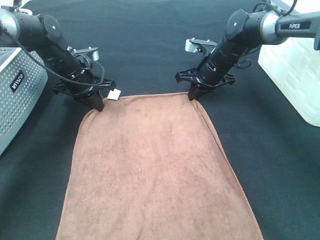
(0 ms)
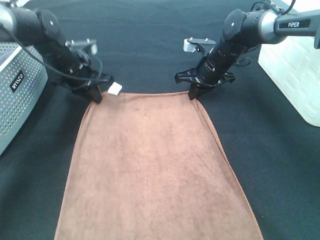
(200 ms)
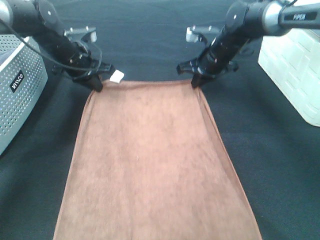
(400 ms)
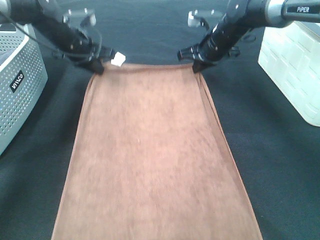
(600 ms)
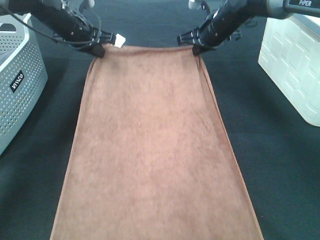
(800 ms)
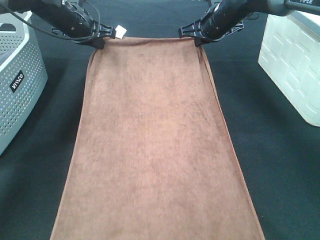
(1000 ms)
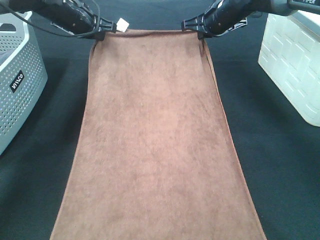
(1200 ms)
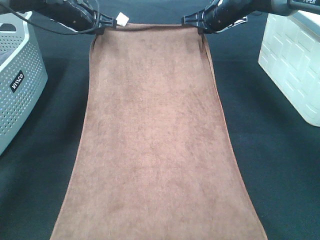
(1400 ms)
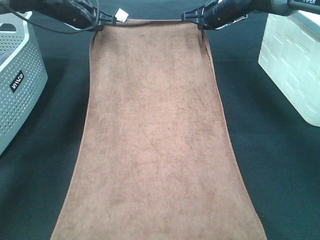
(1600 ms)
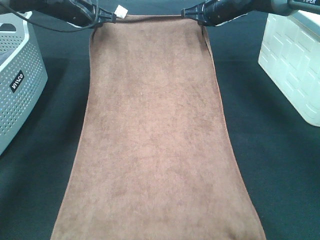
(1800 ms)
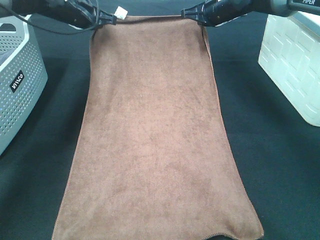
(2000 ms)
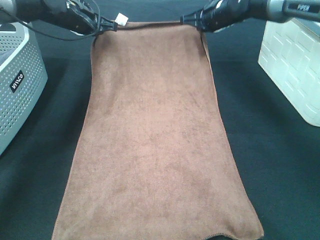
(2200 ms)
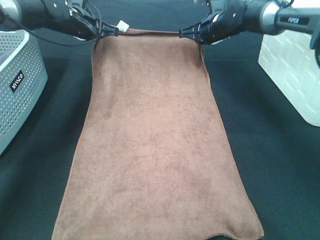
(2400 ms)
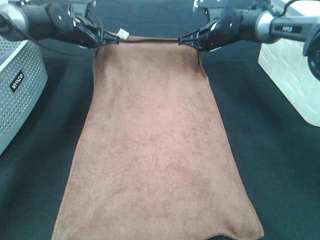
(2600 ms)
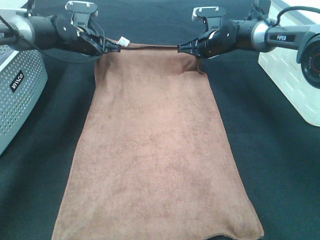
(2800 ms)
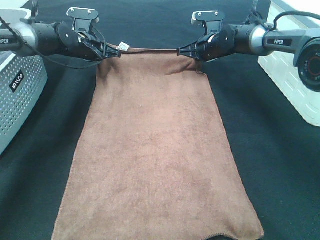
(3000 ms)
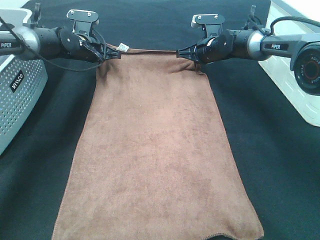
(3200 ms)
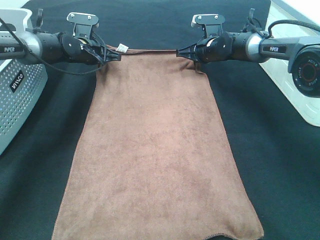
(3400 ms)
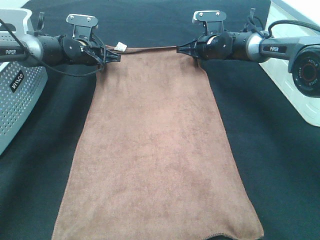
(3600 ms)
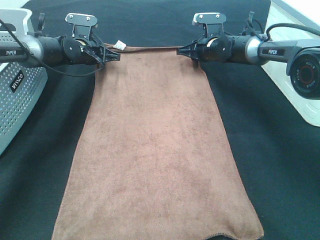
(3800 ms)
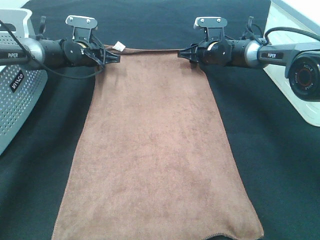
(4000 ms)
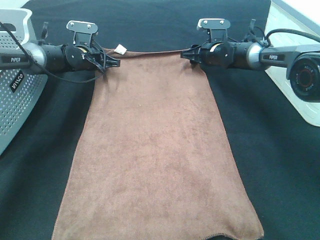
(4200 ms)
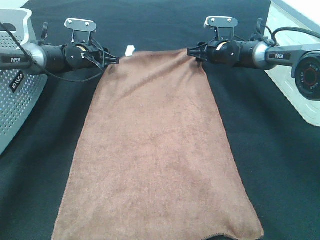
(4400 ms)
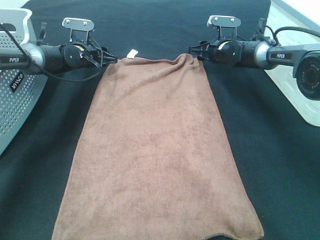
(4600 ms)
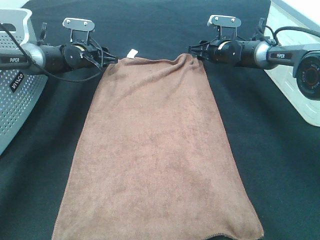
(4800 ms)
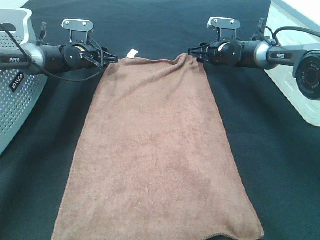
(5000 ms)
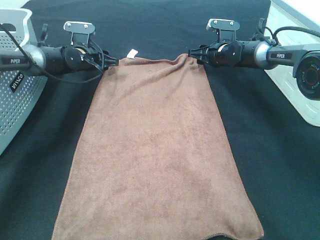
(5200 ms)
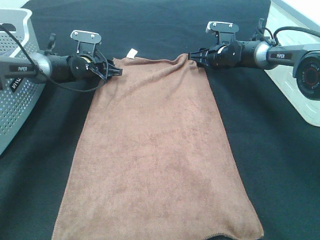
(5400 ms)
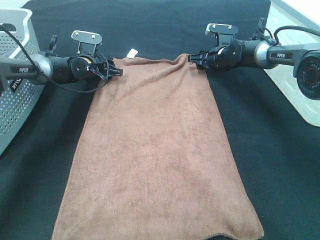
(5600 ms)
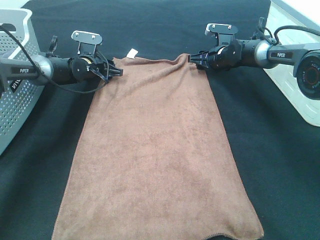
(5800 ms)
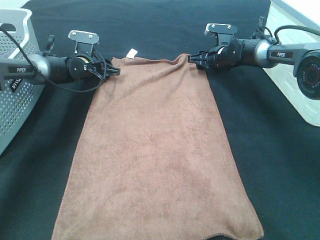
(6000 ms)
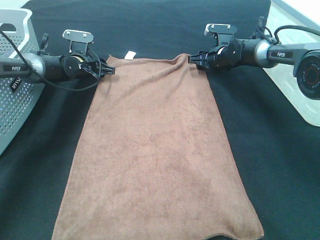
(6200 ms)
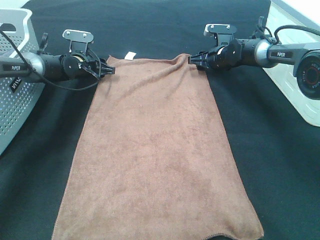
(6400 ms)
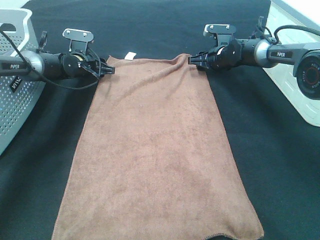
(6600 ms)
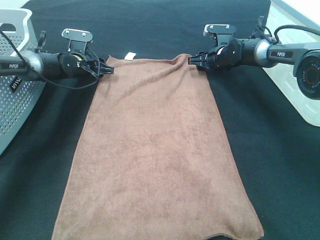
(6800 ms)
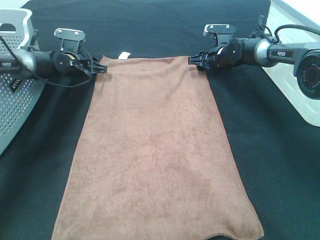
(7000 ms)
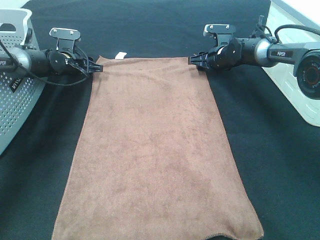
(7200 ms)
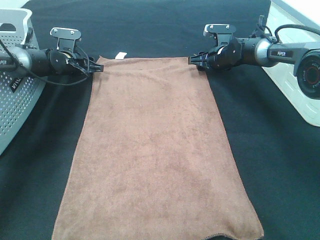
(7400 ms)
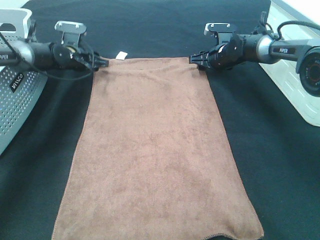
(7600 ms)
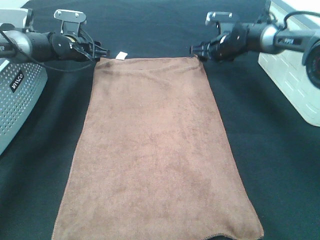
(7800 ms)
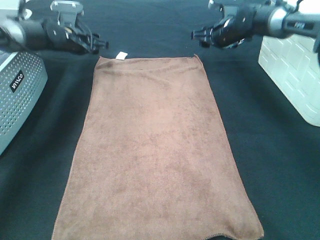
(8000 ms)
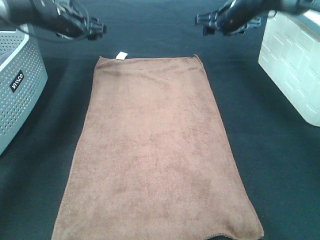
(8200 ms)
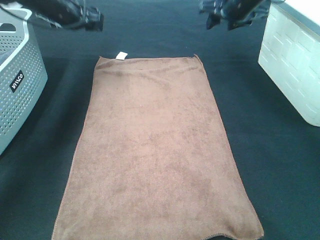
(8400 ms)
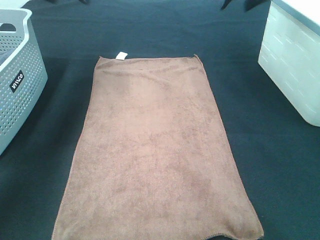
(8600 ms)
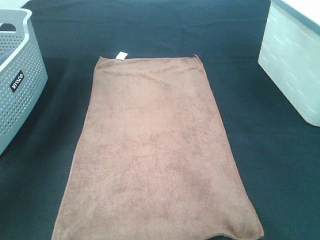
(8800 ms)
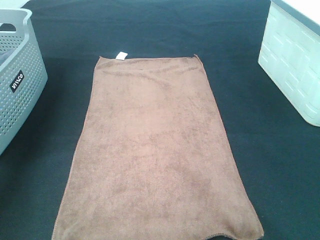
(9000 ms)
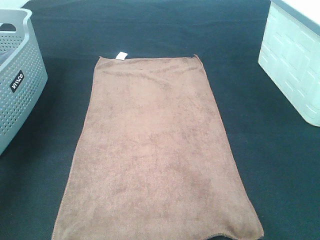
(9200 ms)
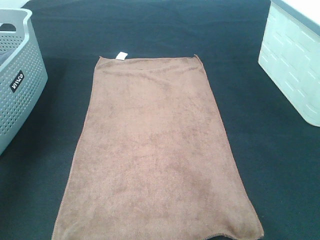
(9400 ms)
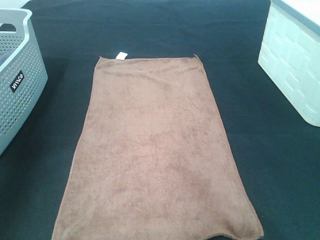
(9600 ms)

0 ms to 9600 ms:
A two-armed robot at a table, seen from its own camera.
Task of the whole recording: Remove the towel and place it.
0 ms to 1600 ms: Both grippers move upward and forward, approximately 10 cm.
1600 ms to 3200 ms: The grippers both shift downward by approximately 10 cm.
3200 ms to 4800 ms: The left gripper opens. Meanwhile the right gripper opens.
4800 ms to 6400 ms: There are only small adjustments of the grippers.
6400 ms to 8000 ms: Both grippers travel together upward, roughly 10 cm.
8000 ms to 9600 ms: Both grippers move backward and upward, approximately 40 cm.

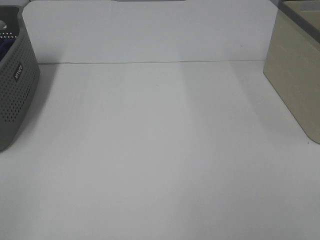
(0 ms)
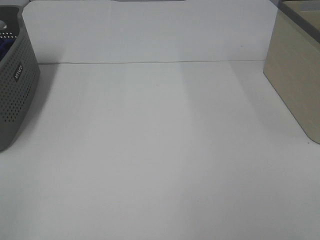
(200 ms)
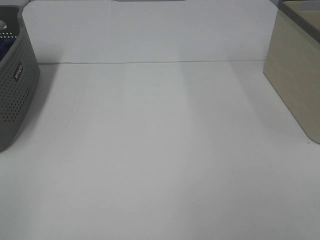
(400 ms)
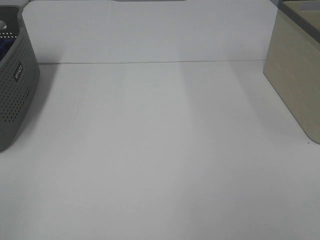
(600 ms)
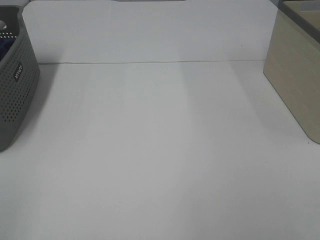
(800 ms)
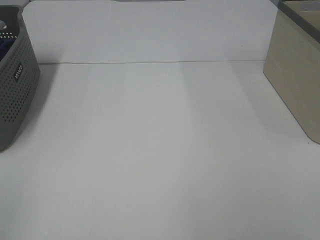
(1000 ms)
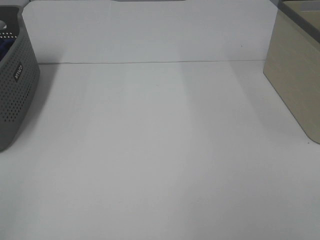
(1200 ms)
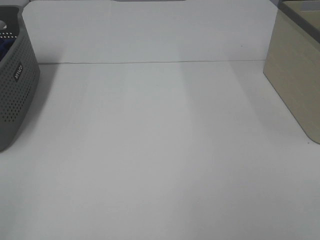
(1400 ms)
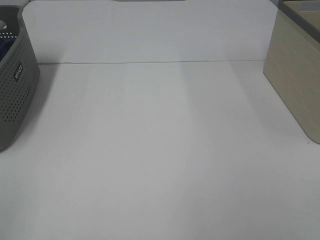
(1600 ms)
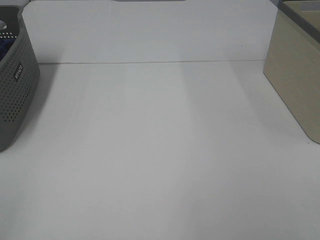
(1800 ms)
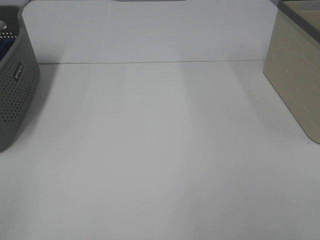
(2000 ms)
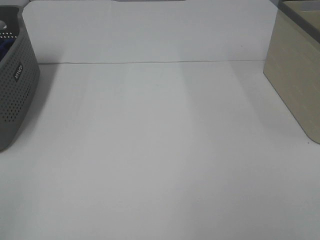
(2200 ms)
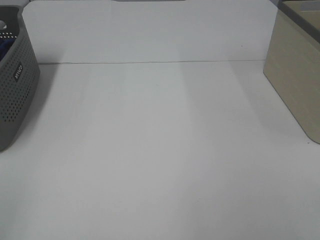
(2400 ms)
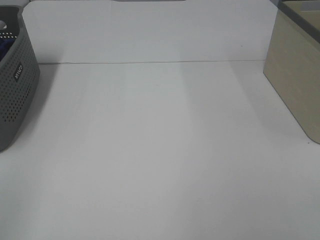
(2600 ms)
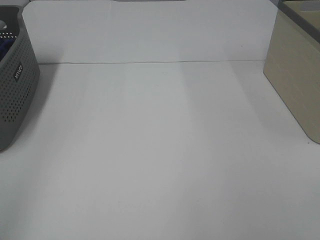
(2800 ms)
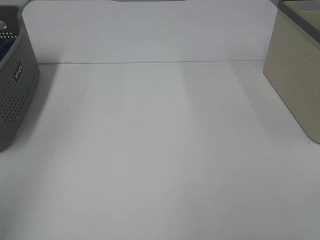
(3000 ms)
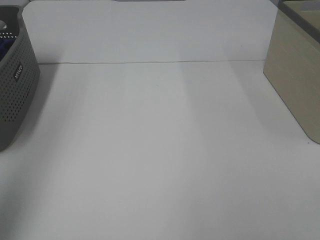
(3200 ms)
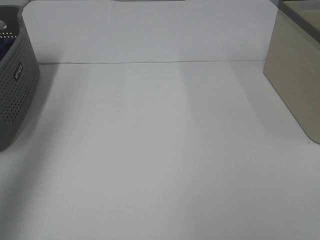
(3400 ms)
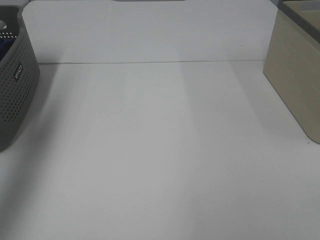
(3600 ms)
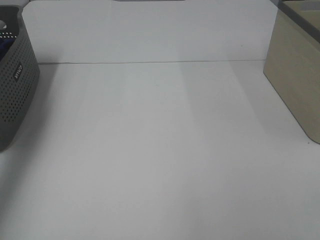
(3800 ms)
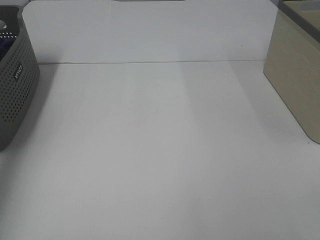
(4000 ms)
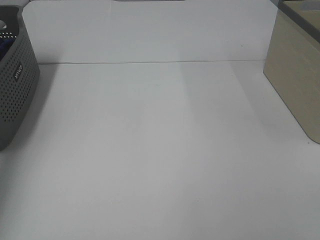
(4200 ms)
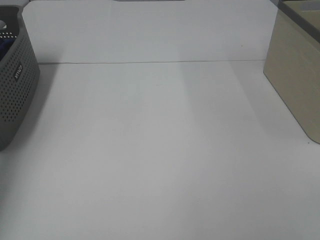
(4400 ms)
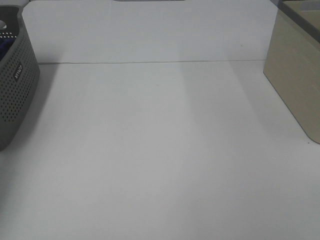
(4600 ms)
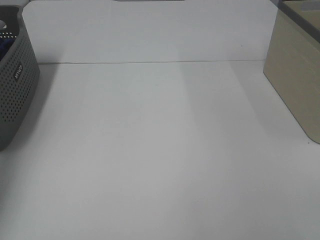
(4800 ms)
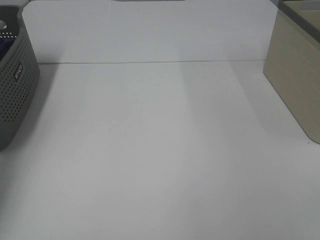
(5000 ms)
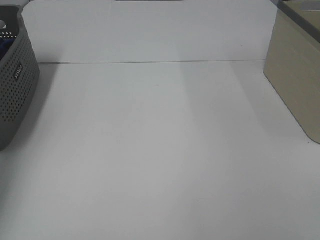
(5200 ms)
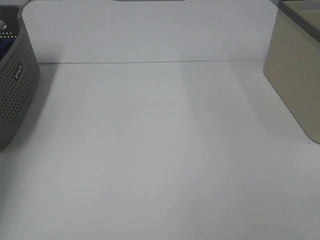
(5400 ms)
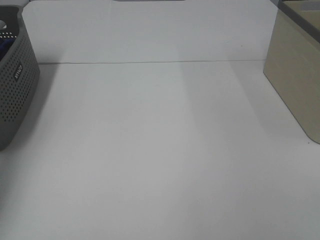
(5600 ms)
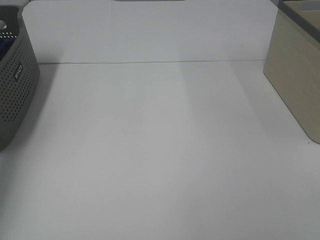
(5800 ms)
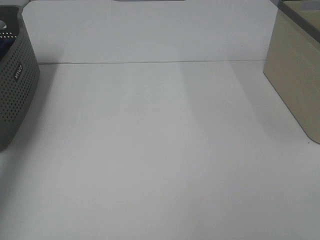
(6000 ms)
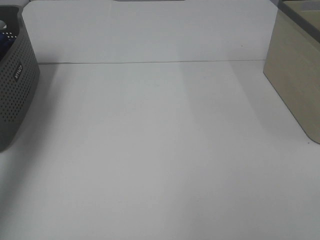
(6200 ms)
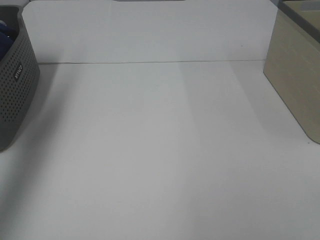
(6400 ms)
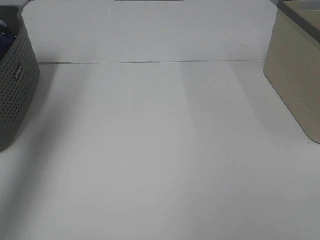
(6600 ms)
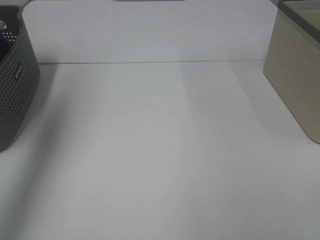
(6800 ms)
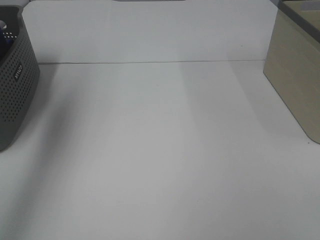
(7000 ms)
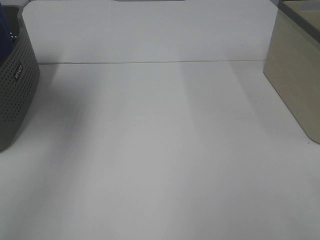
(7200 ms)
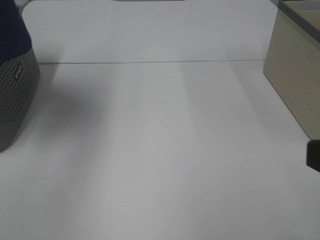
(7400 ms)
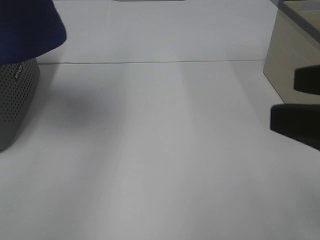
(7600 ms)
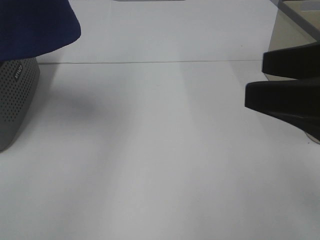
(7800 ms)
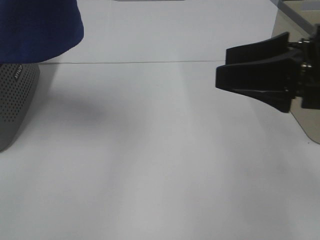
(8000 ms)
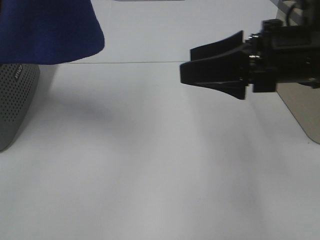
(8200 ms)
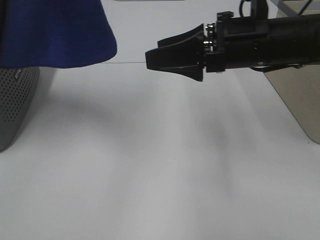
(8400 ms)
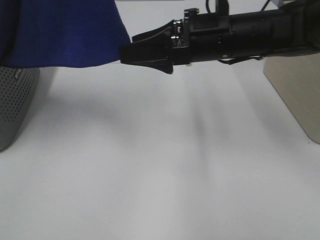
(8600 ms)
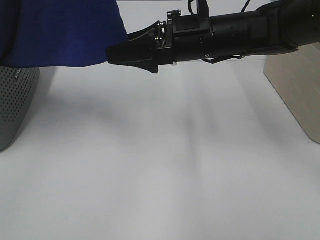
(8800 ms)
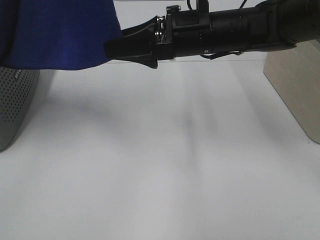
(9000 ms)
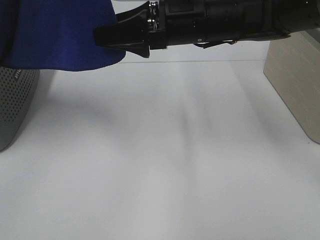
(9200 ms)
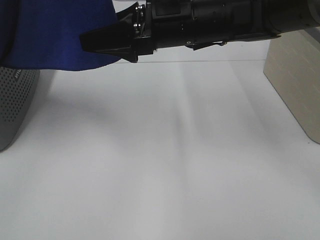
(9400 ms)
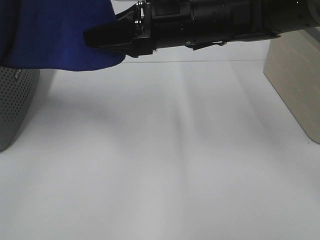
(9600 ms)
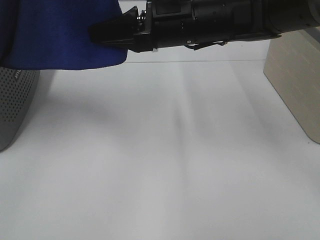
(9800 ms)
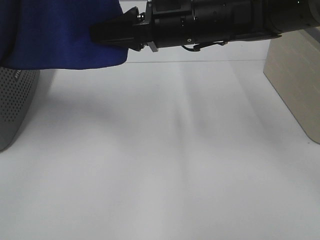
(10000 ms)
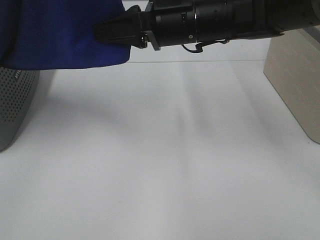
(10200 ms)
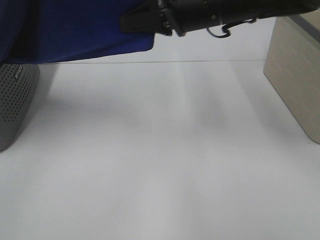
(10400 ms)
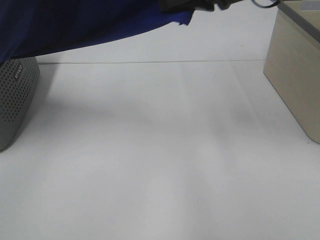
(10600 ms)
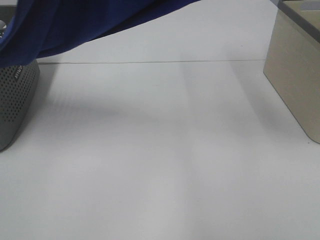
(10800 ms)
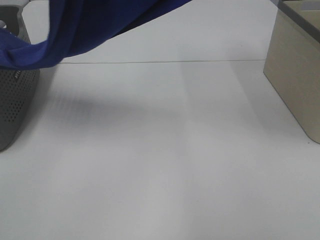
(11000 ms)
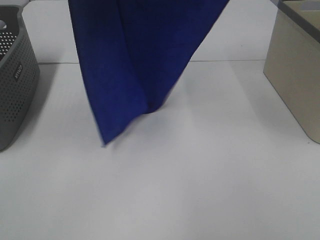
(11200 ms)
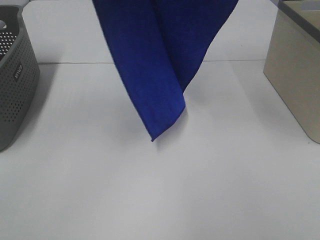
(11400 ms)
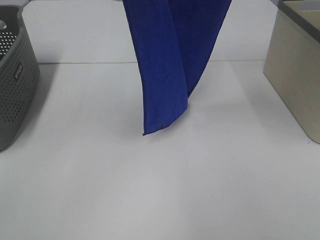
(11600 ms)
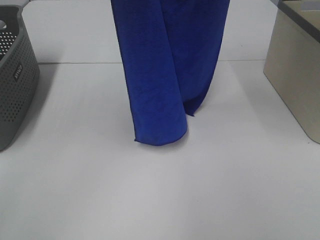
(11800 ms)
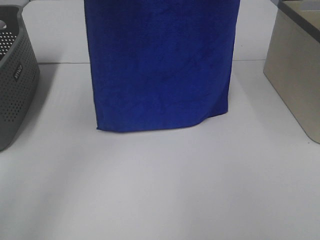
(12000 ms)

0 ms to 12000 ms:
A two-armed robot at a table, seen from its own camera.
Task of the whole recording: Remove the towel and place it.
Step, 7000 ms to 9800 ms: Right hand: grab a corner of the blue towel and straighten it.
0 ms to 1600 ms: Both grippers stay about where they are.
3000 ms to 4400 ms: The left gripper shifts approximately 40 cm forward and downward.
6000 ms to 7600 ms: The left gripper goes about 30 cm upward, to the right and backward, while the right gripper shifts approximately 10 cm forward.
7600 ms to 9000 ms: The left gripper is displaced to the right by some 5 cm. Meanwhile the right gripper is displaced forward and to the left by some 30 cm.
9000 ms to 10400 ms: The right gripper closes its fingers.
10400 ms to 12000 ms: The right gripper goes some 25 cm upward and to the right; the left gripper goes some 15 cm forward.
